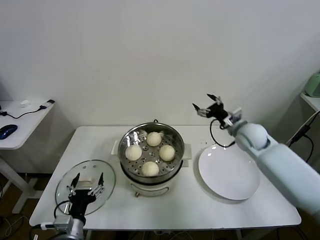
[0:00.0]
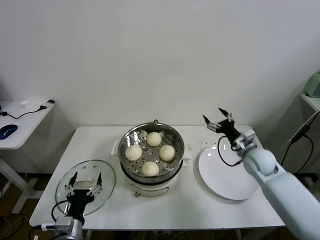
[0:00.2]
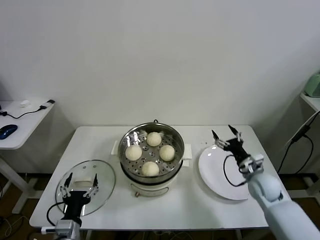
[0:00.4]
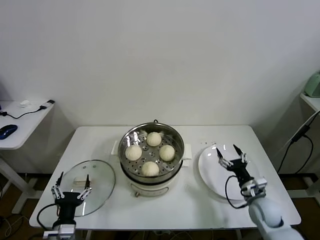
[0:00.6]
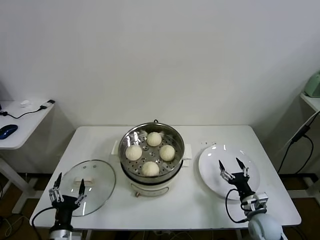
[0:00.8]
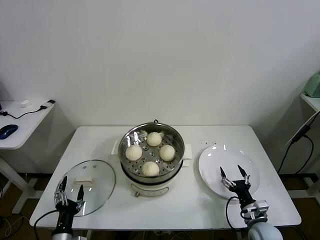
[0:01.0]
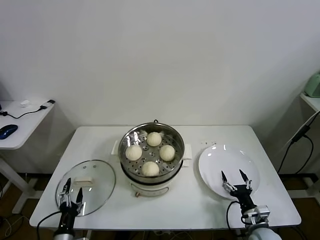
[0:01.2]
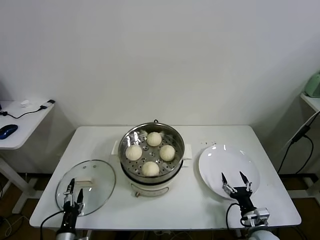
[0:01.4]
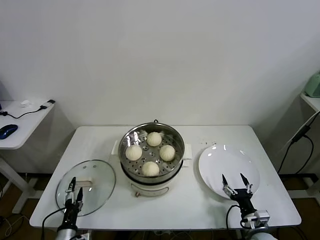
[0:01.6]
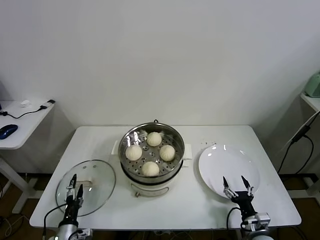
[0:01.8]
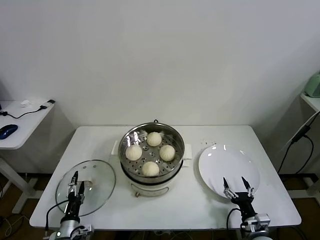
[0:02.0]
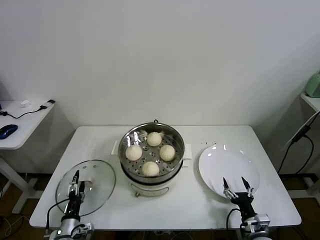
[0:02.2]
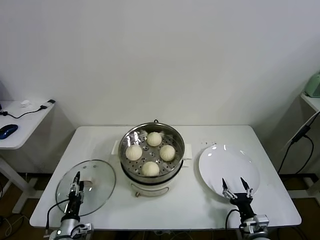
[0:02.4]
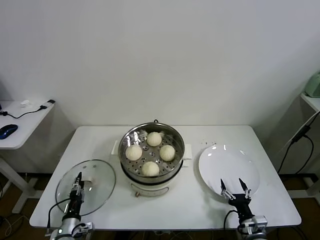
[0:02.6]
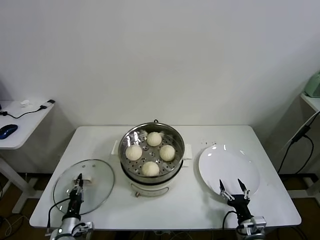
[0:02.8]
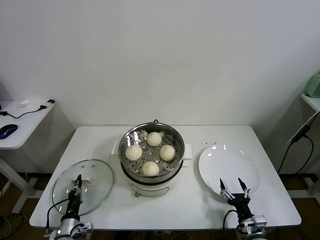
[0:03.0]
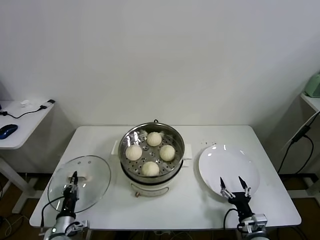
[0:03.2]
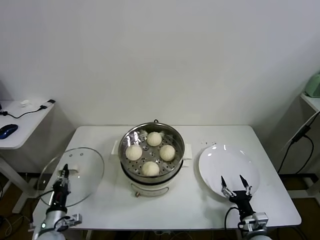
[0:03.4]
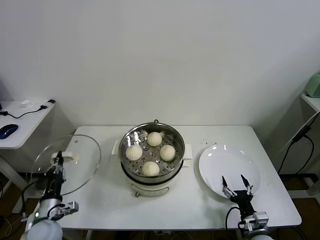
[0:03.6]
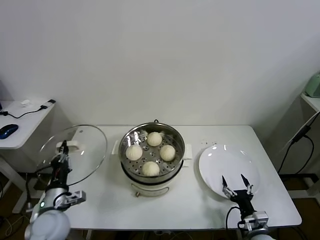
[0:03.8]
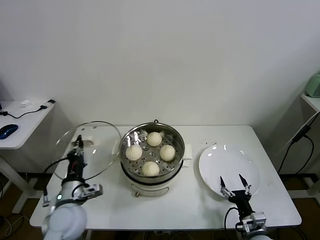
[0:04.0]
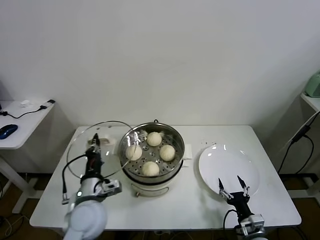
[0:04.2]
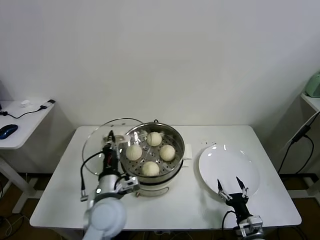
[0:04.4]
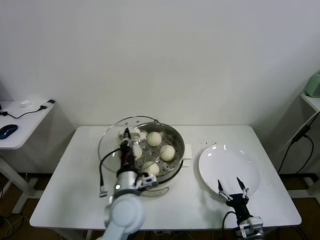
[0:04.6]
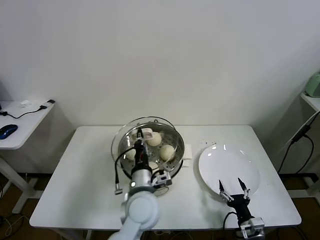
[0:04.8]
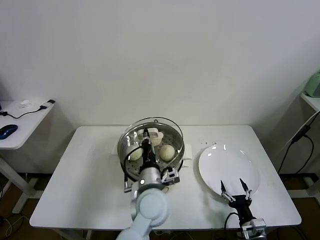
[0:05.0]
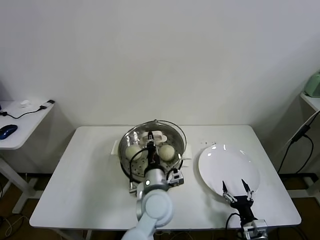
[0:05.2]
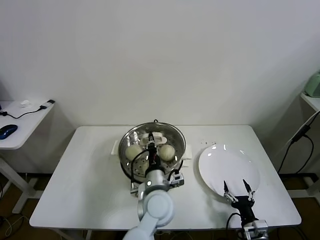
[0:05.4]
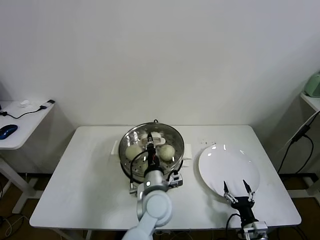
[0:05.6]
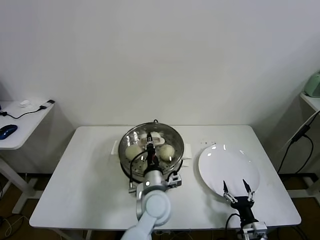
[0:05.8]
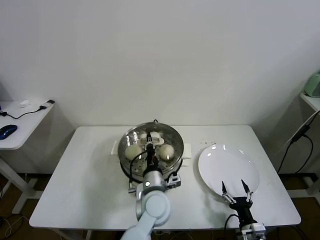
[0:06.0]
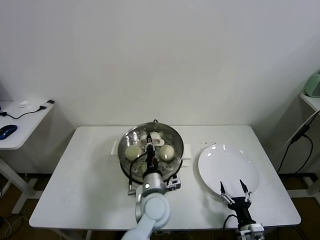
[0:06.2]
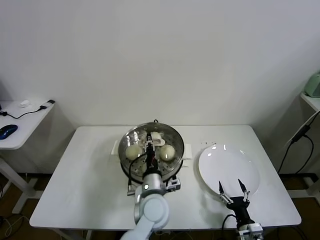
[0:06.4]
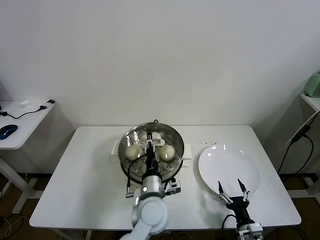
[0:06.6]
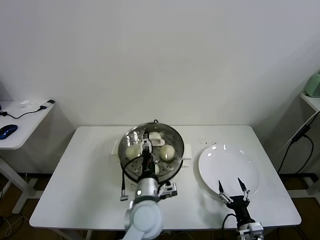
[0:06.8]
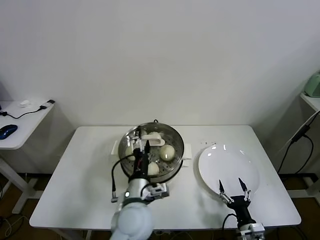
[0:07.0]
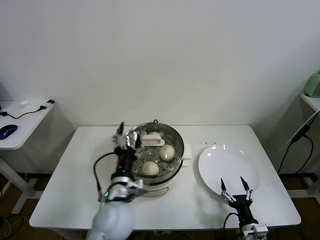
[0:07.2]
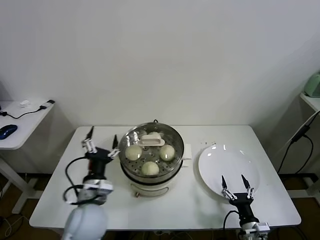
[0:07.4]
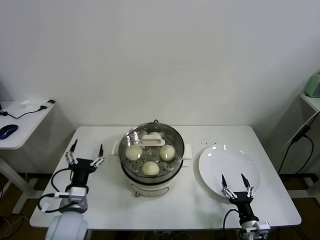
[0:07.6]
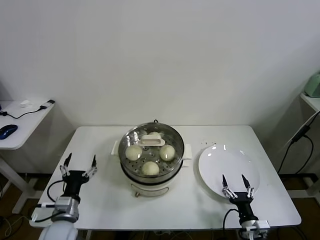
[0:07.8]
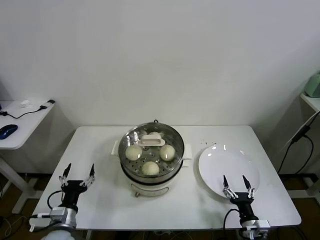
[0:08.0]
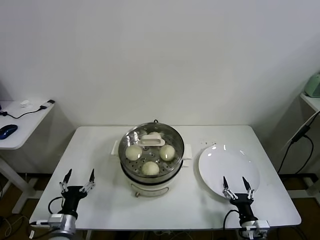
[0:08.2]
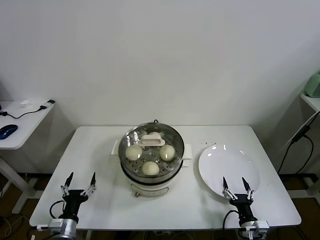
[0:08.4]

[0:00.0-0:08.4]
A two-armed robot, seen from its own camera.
Task of the whole recording: take steamed baozi put them in steamer.
Step, 0:00.0 to 0:02.8: Grasp the pot lid with left gripper.
Step, 0:03.0 to 0:06.4: Place the pot lid on the steamer with left gripper.
0:00.0 to 0:01.4: The right gripper moves backward and downward, approximately 35 cm. Meanwhile the left gripper moves downward and to the left, roughly 15 cm.
0:01.4 to 0:02.8: The left gripper moves forward, approximately 5 cm, and closes up.
0:02.8 to 0:04.2: The left gripper goes approximately 25 cm upward and to the right.
0:04.2 to 0:05.6: The left gripper goes about 20 cm to the right.
0:05.6 to 0:07.0: The left gripper shifts by about 5 cm, and opens its fingers.
0:07.0 to 0:08.4: The left gripper goes about 30 cm to the left and downward.
